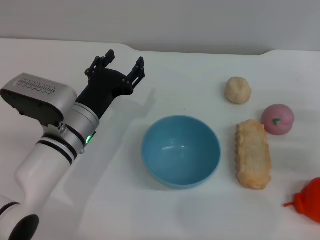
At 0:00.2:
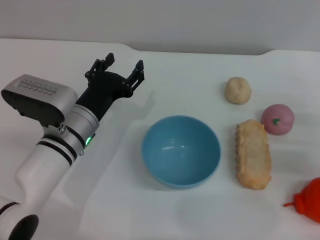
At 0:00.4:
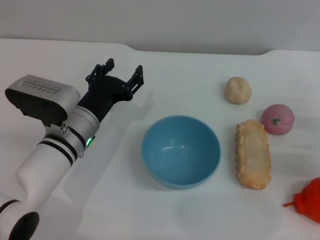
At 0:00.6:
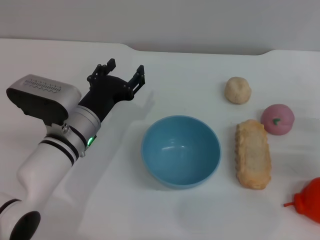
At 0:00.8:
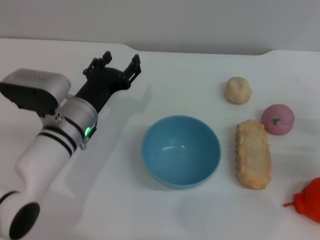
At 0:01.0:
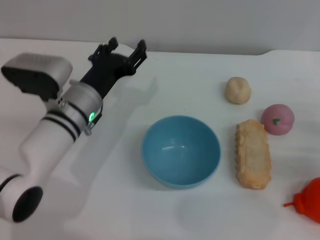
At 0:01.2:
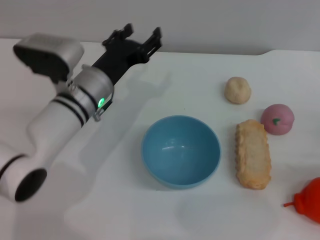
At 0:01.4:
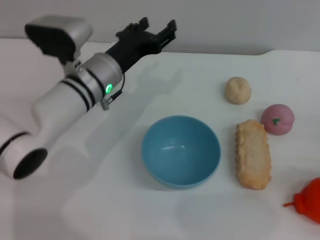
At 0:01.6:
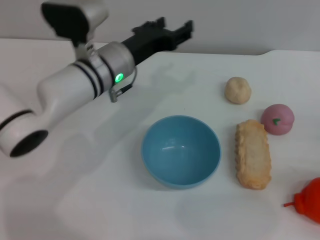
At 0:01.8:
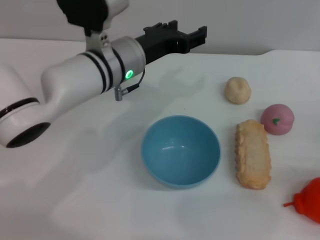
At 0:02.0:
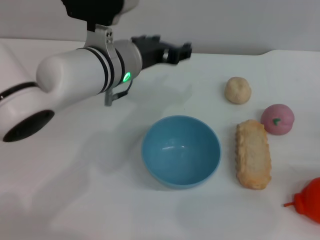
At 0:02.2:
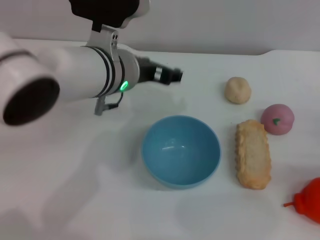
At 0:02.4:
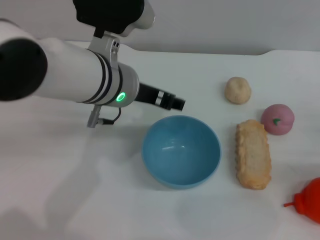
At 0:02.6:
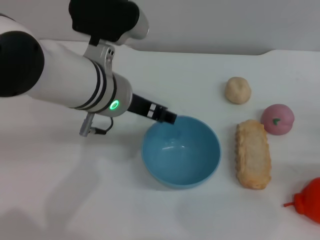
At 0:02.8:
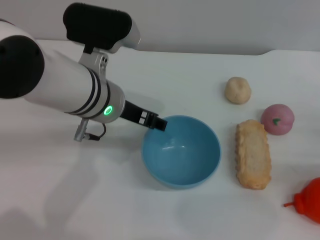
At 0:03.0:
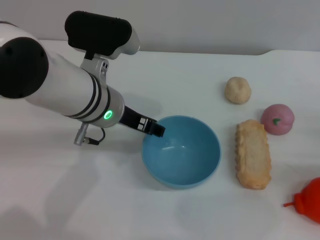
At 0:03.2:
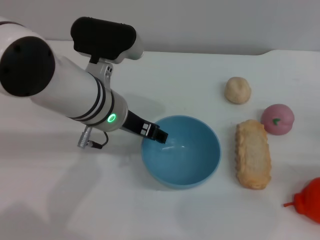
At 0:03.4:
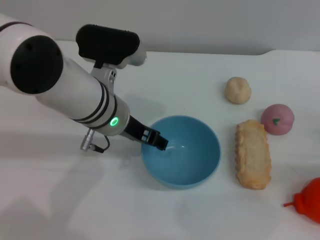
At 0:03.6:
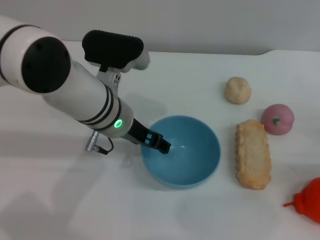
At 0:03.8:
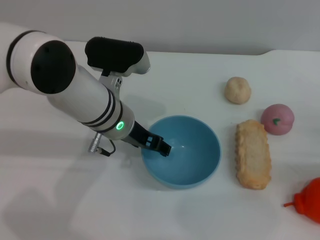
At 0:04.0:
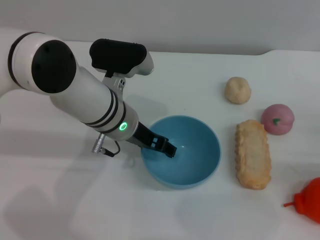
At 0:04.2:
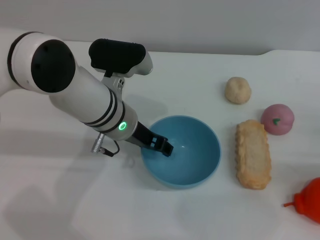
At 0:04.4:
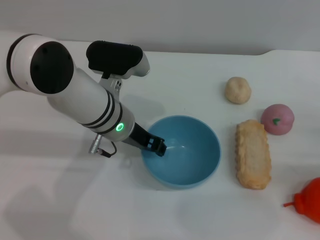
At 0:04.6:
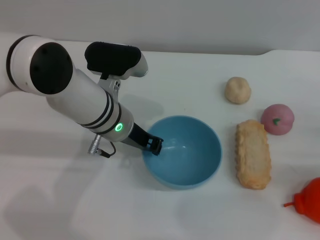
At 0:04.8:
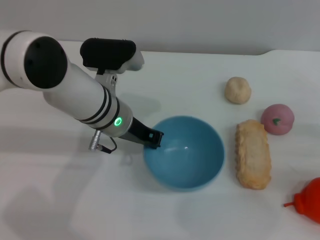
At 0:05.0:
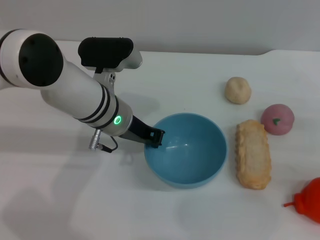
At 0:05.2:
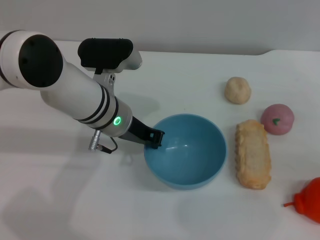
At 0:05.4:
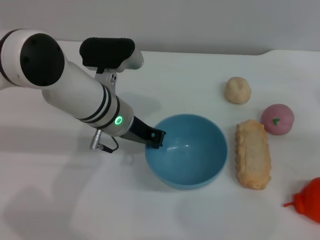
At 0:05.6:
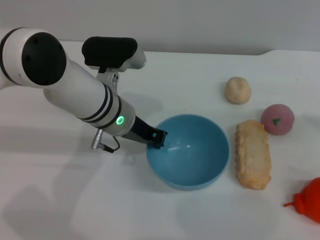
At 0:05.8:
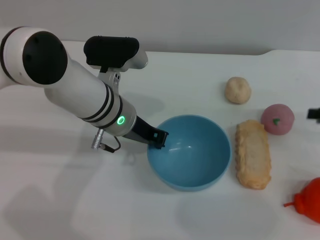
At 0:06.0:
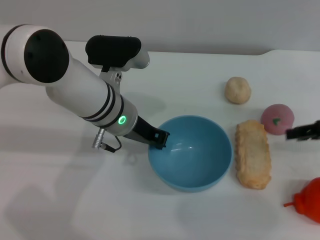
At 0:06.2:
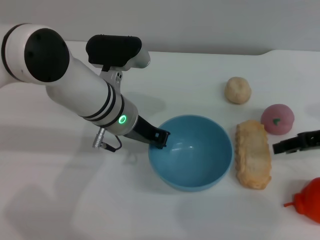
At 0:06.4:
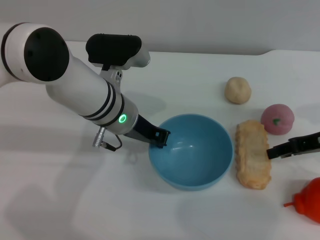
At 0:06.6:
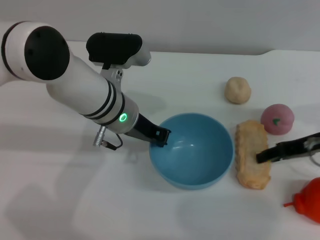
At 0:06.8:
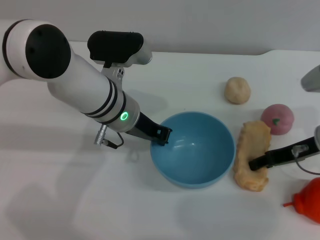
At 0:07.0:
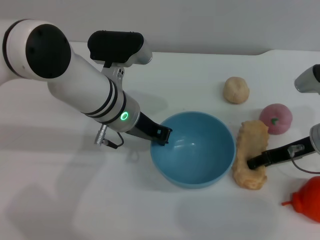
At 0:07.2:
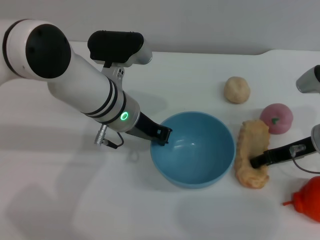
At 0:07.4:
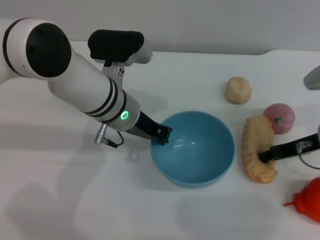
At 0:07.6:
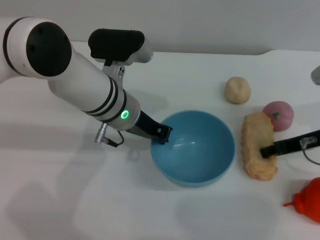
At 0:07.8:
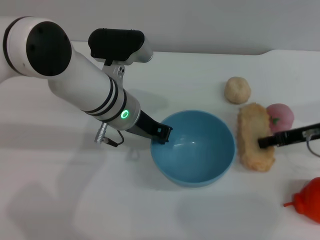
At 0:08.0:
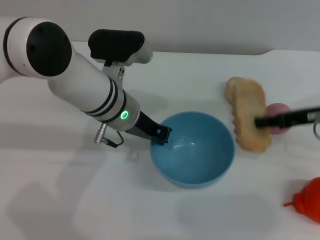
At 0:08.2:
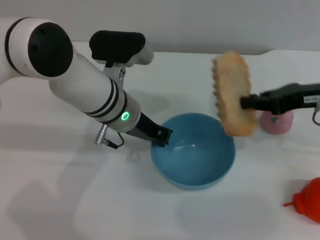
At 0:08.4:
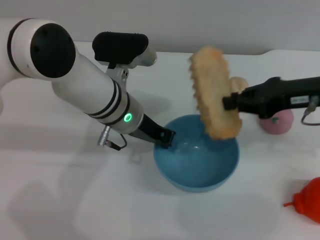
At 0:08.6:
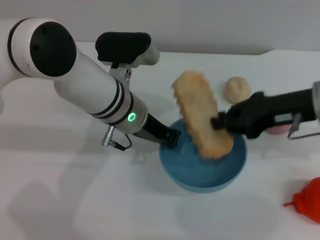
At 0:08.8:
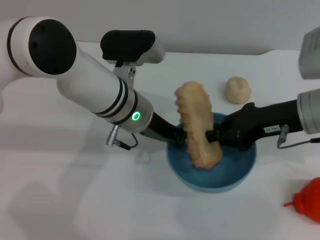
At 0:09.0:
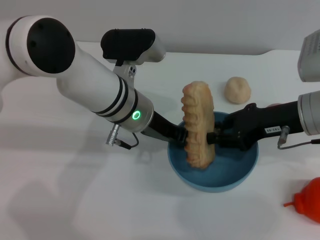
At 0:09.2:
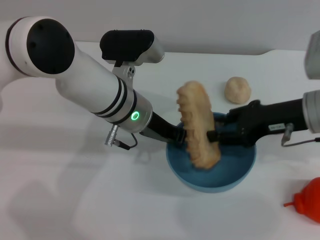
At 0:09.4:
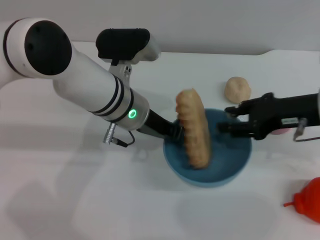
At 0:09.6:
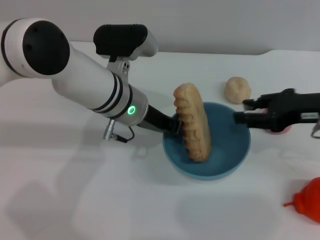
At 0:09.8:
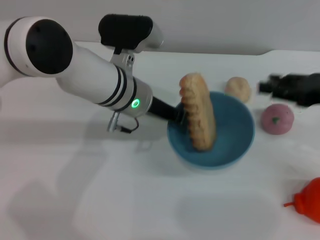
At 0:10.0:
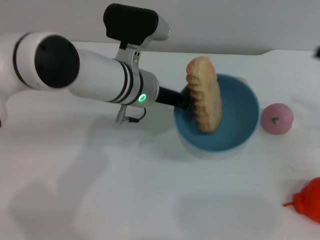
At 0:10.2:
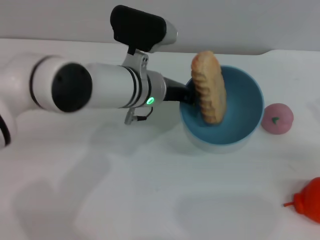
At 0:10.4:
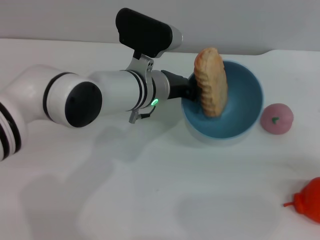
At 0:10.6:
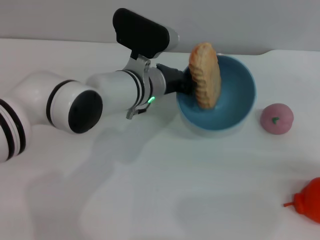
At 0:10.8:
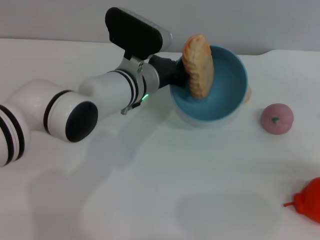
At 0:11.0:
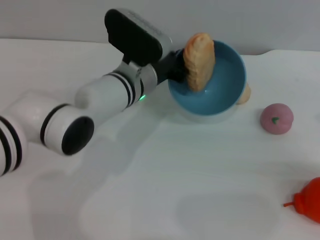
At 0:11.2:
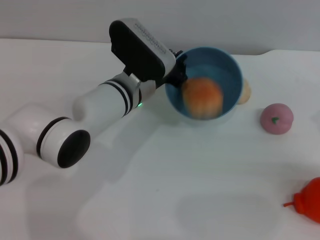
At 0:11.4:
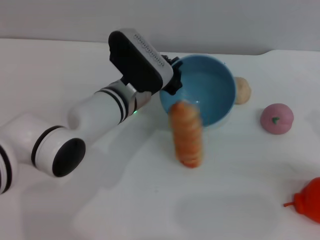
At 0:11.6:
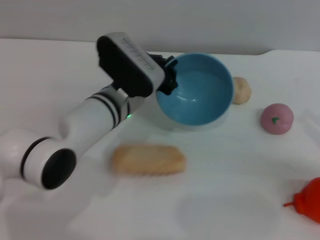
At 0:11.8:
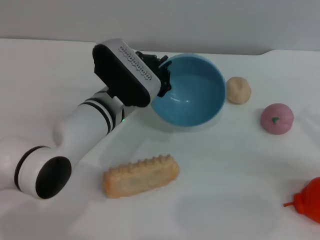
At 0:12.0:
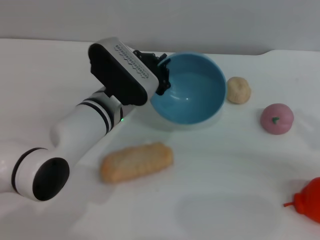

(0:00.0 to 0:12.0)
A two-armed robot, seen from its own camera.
Task of the whole recording: put the bread into the blue bowl and pour it out repeatedly.
Step, 0:00.0 - 0:05.8: Pick up the bowl with the left gripper.
Step, 0:06.0 - 0:07.8: Pick up the bread with the right gripper.
Step, 0:08.0 - 0:09.4: Place the bread into the bowl.
Step, 0:09.6 - 0:11.6: Pour the bread out of the bowl.
0:00.0 - 0:01.6: The right gripper shifts by roughly 5 cm; the left gripper moves forward and upward, some 10 cm.
0:01.6 - 0:03.0: The left gripper moves backward, roughly 5 cm.
0:03.0 - 0:04.4: The left gripper travels downward by about 5 cm.
0:04.4 - 0:06.0: The right gripper shifts roughly 15 cm upward and forward, while the left gripper closes up.
0:06.0 - 0:07.6: The right gripper travels to the left by some 5 cm, and closes its fingers.
0:07.6 - 0:09.0: The right gripper travels to the left and upward by roughly 10 cm.
0:09.0 - 0:10.4: The right gripper shifts about 20 cm to the right and backward, and opens up.
0:10.4 - 0:12.0: The left gripper ends up roughly 5 cm from where it was.

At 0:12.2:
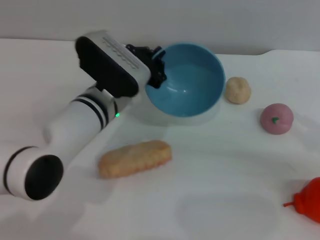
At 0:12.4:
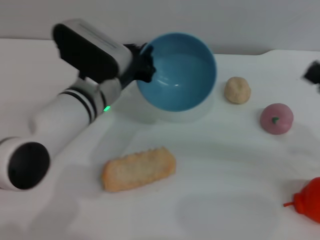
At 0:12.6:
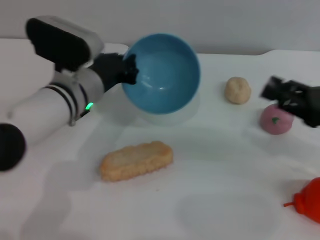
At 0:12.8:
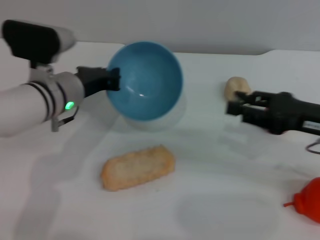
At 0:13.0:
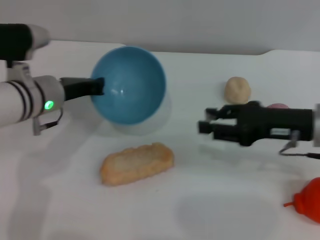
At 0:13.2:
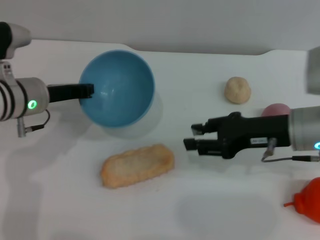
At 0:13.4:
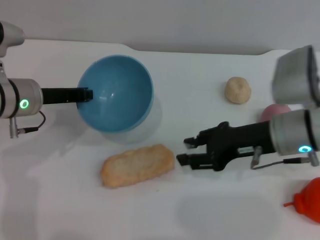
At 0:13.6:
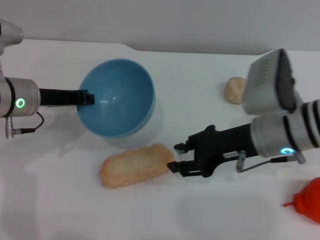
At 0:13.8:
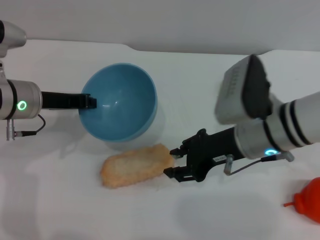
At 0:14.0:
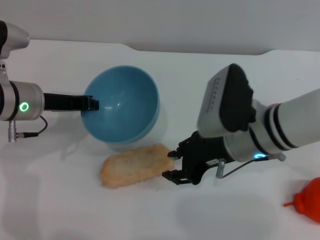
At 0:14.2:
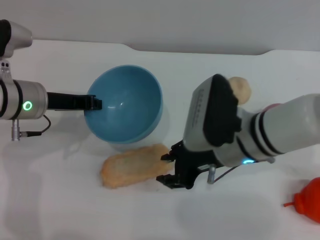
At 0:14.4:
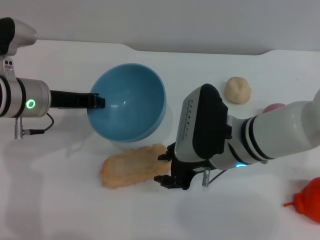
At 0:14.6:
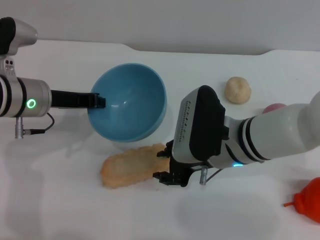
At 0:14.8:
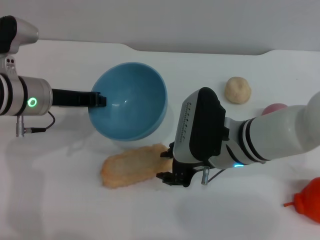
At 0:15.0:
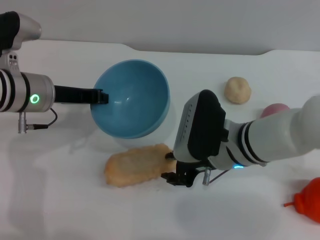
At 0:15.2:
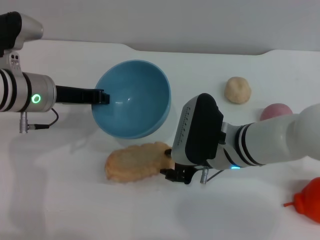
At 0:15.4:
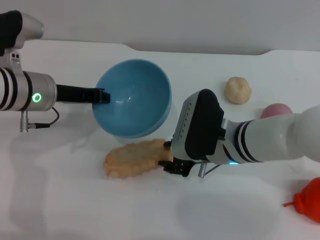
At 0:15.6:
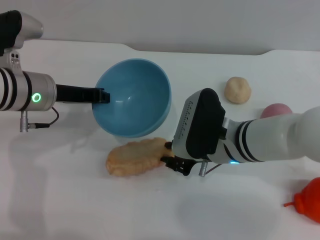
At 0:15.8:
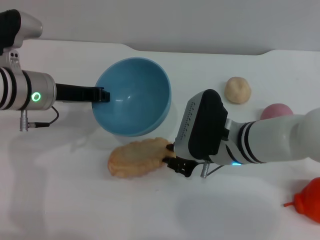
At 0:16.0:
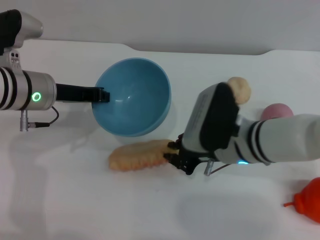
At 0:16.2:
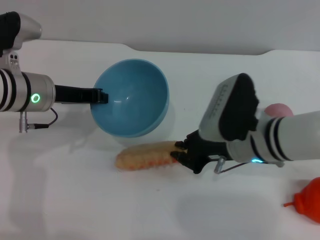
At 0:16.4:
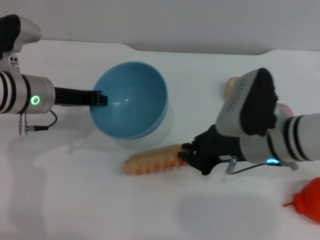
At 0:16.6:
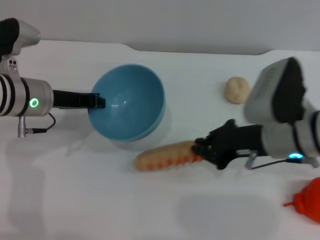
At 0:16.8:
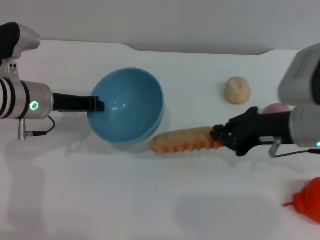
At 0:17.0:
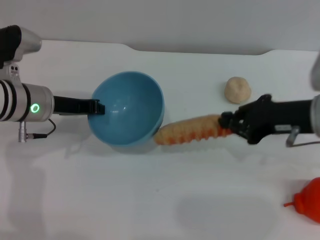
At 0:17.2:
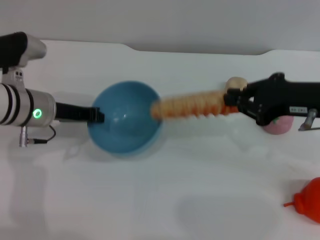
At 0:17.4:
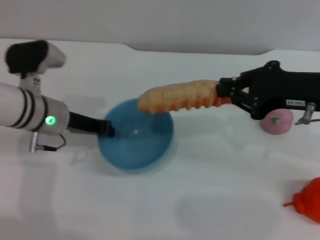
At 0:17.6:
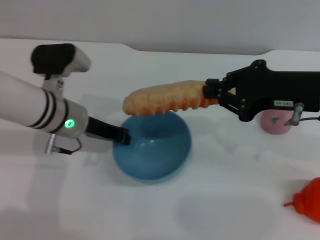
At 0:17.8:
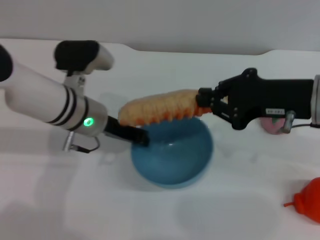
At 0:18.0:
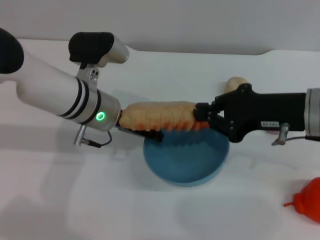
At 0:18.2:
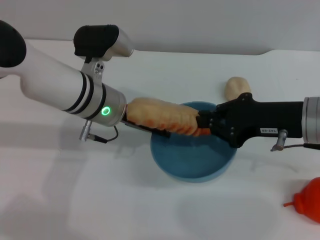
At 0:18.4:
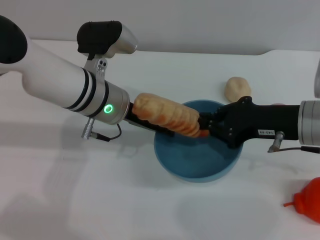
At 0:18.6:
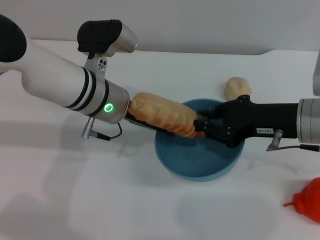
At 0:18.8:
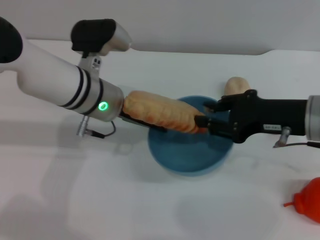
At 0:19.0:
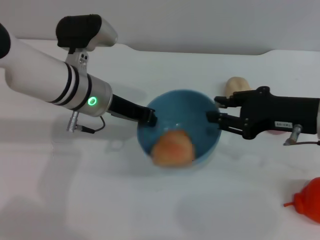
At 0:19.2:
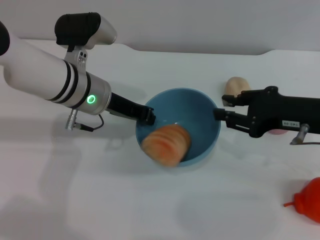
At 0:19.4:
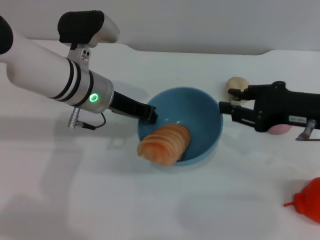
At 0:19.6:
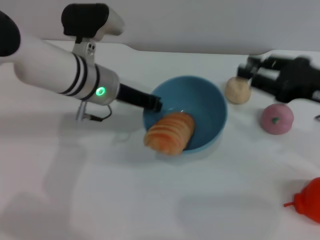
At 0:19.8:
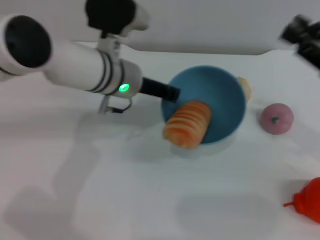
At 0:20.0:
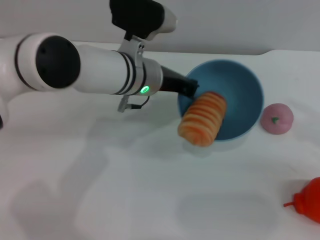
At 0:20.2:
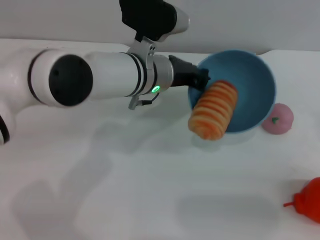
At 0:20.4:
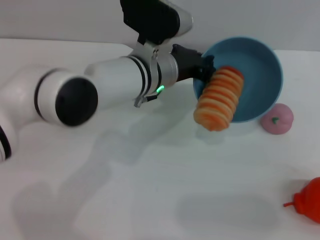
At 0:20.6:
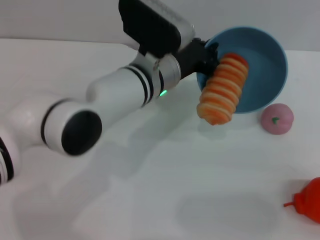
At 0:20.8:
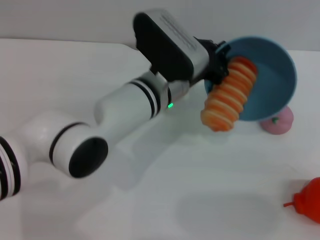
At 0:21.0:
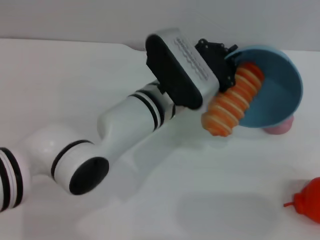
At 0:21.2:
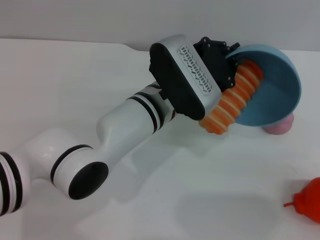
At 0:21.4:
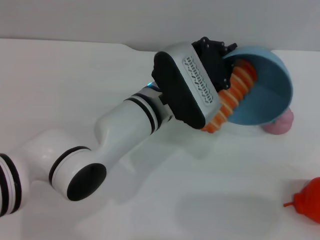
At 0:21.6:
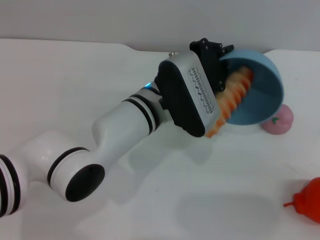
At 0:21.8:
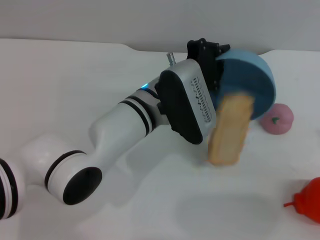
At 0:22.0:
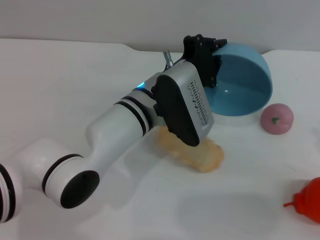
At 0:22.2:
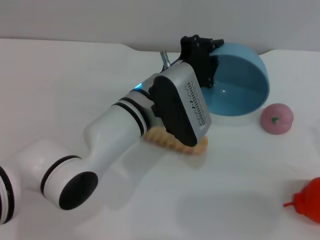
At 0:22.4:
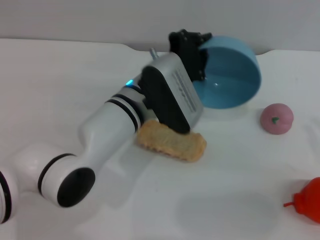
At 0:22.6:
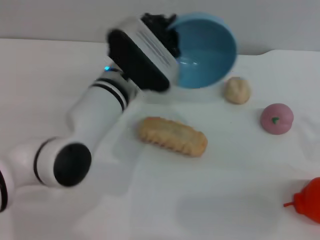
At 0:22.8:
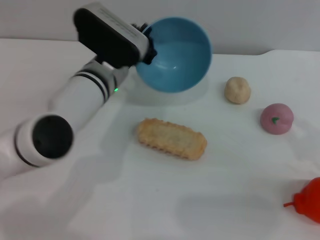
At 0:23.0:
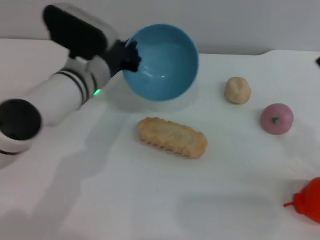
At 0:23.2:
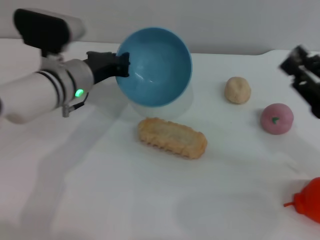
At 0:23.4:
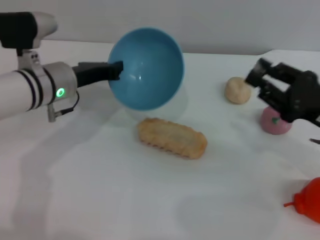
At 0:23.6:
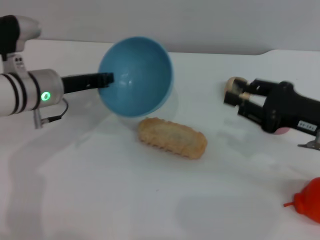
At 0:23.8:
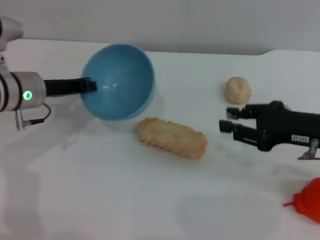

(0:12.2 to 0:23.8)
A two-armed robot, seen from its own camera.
Task of the whole recording: put the bread into the blue bowl and pour it out repeatedly.
Step, 0:12.2 - 0:17.4: Pick up the bread with the right gripper.
Step, 0:17.6 - 0:18.8: Place the bread into the bowl.
Step, 0:19.2 - 0:22.0: Pour the bread out of the bowl.
0:12.2 - 0:13.6: The grippers both shift to the left by about 15 cm.
0:13.6 - 0:15.0: The right gripper heads to the left, covering some 5 cm.
0:15.0 - 0:16.6: The right gripper moves to the right, some 5 cm, and closes up.
0:16.6 - 0:18.0: The left gripper travels to the right by some 10 cm.
0:18.0 - 0:19.4: The right gripper opens up.
0:19.4 - 0:21.0: The right gripper travels to the right, backward and downward by approximately 15 cm; the left gripper moves to the right, roughly 10 cm.
0:22.4 - 0:23.8: The left gripper moves to the left, some 20 cm; the right gripper heads forward and to the left, covering some 10 cm.
